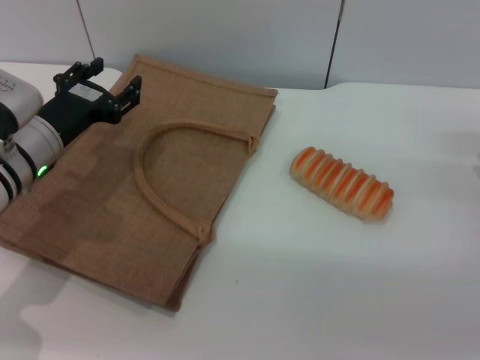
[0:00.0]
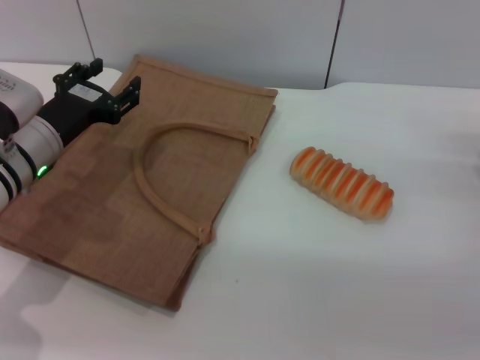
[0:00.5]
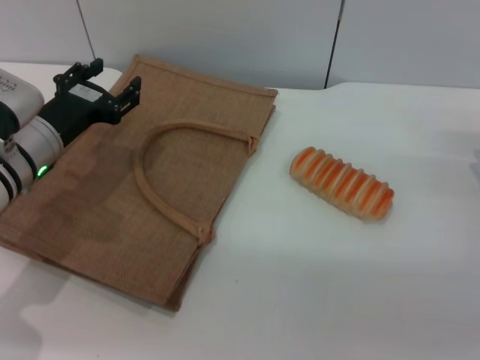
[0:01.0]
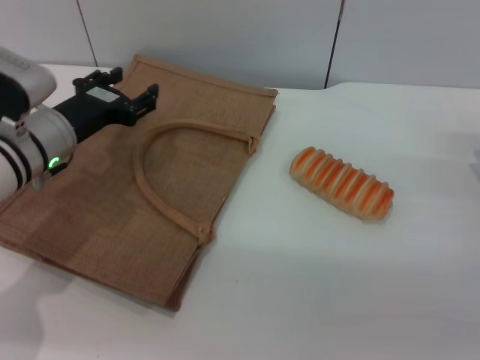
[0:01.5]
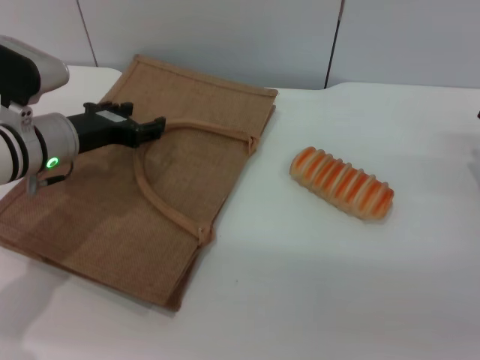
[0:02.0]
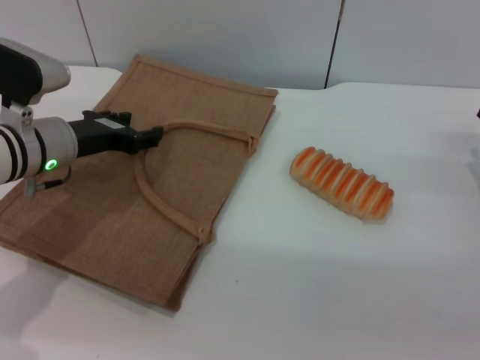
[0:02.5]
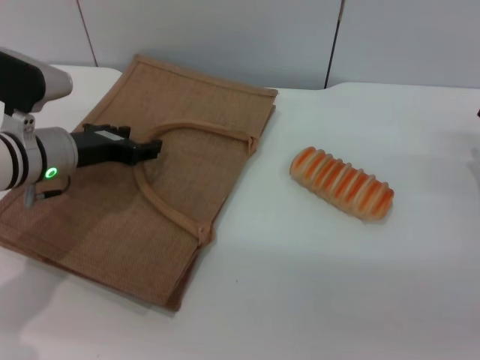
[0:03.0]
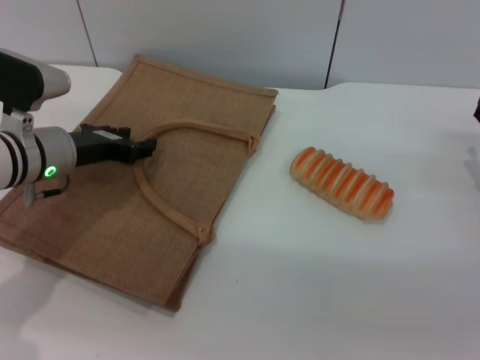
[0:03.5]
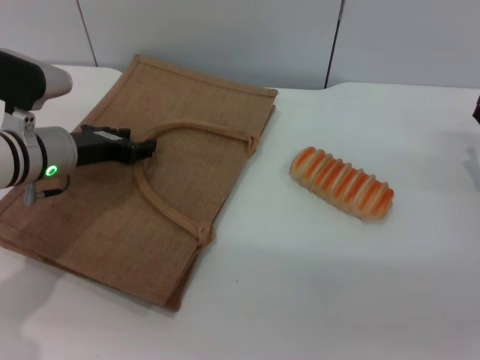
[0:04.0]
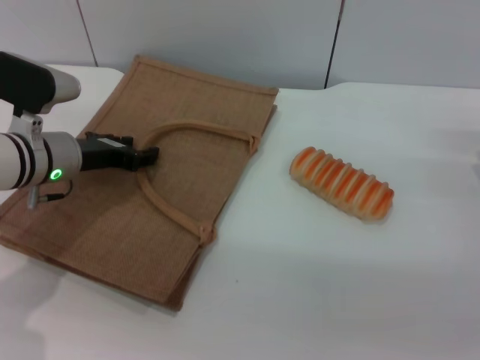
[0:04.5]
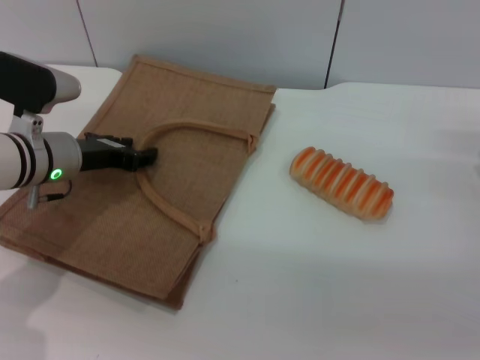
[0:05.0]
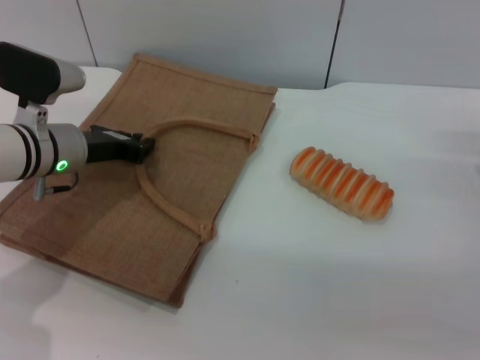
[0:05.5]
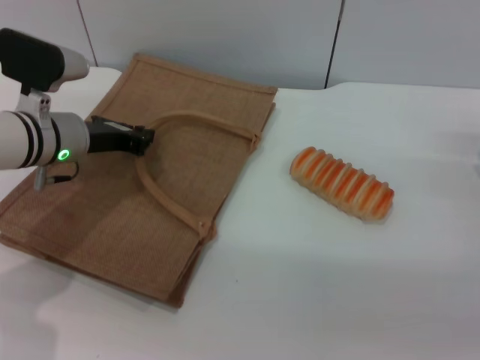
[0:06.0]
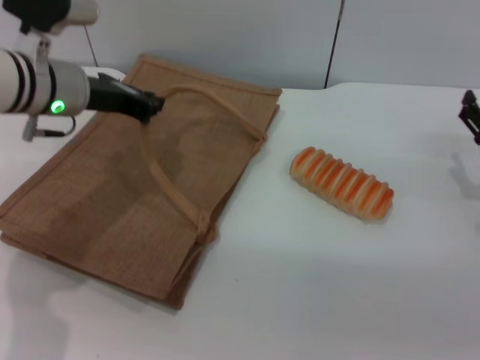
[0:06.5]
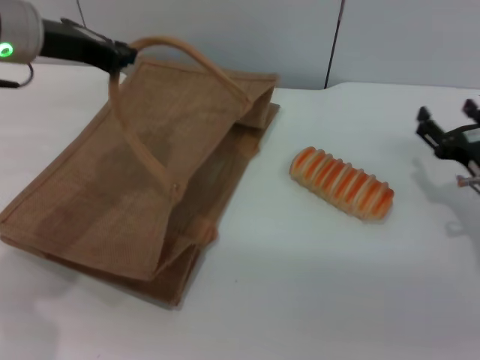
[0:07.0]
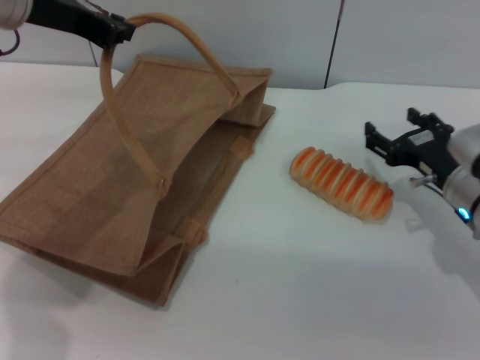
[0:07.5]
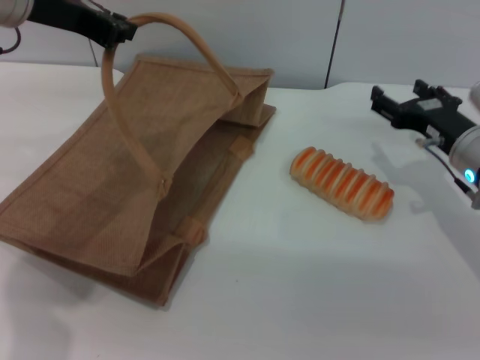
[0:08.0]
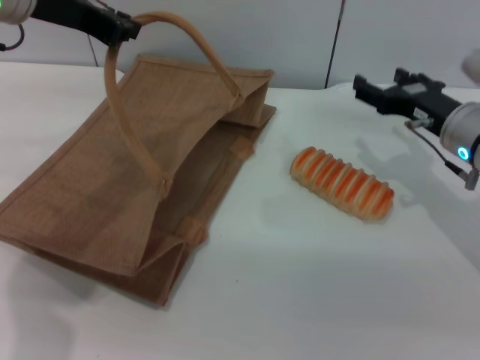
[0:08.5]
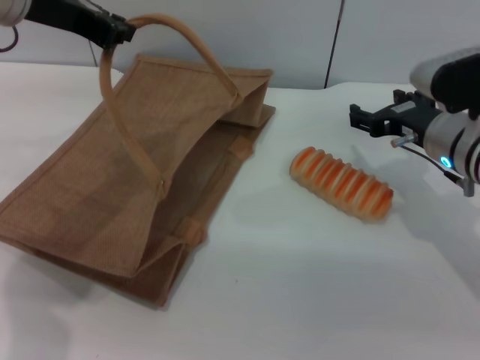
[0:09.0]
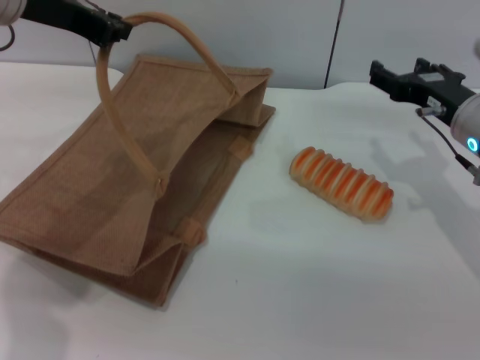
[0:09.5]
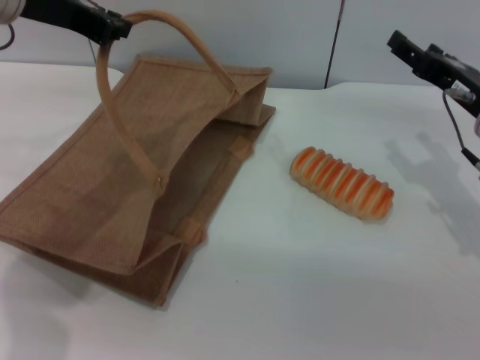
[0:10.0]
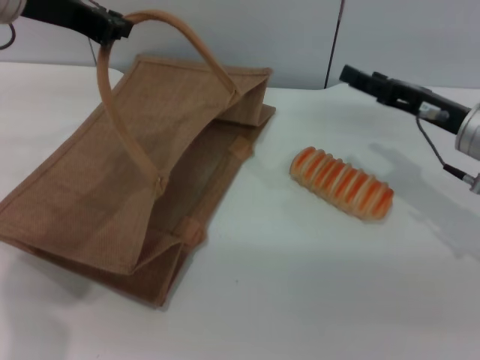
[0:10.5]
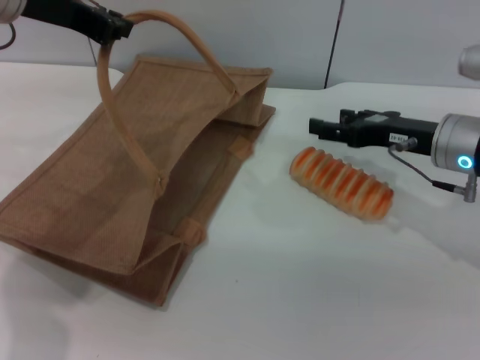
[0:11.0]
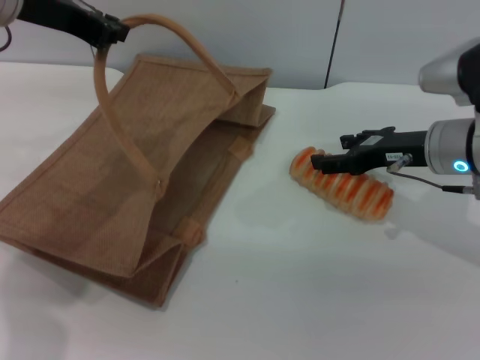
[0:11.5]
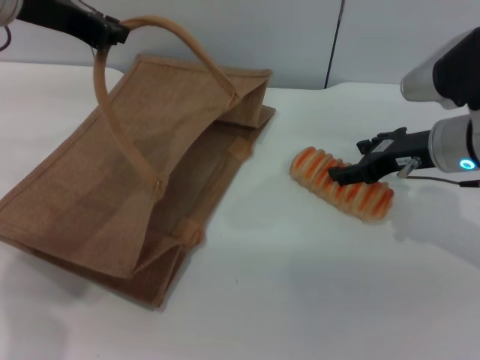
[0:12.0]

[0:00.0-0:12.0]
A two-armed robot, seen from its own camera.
Task of the whole recording: pick up the bread from the table and place it in the brown handbag.
Step, 0:00.0 to 0:06.0: Lift the woven bag with the left gripper to open it.
0:02.0 to 0:04.0: The grippers move only a little.
0:04.0 to 0:06.0: The left gripper closes its fingers.
0:06.0 to 0:08.0: The right gripper travels to the left by roughly 10 cm. Meanwhile the left gripper heads upward, covering about 20 cm.

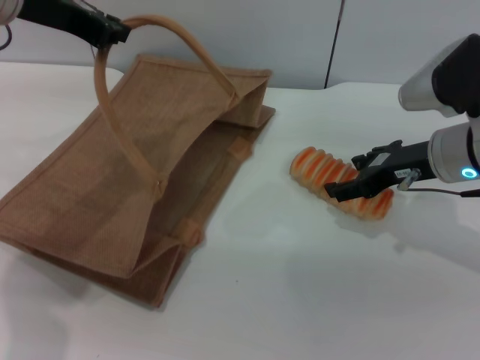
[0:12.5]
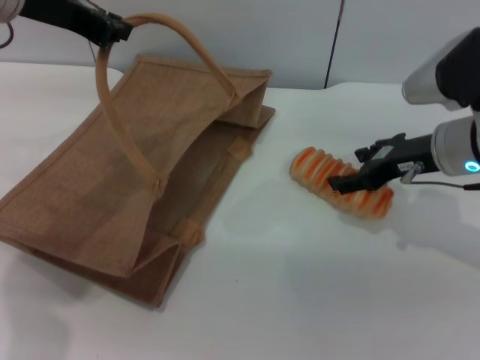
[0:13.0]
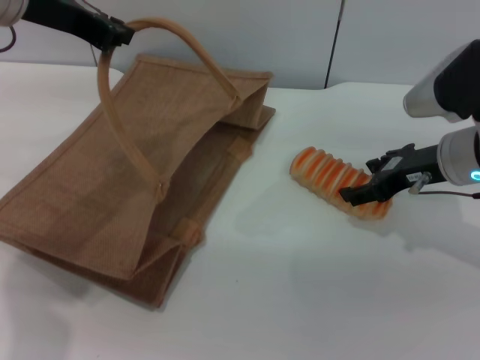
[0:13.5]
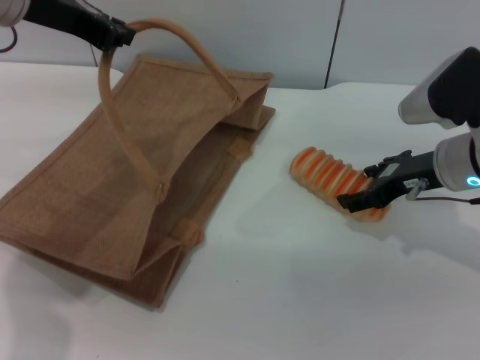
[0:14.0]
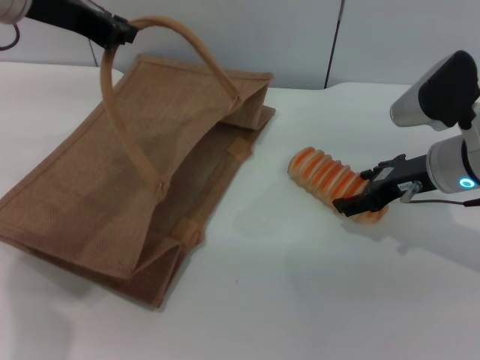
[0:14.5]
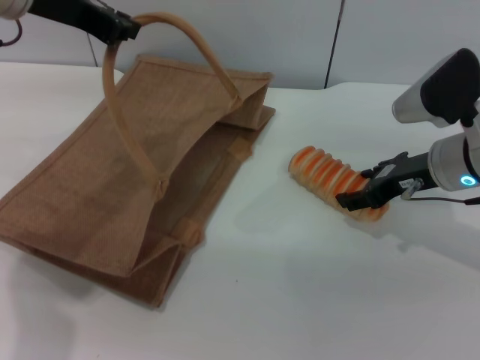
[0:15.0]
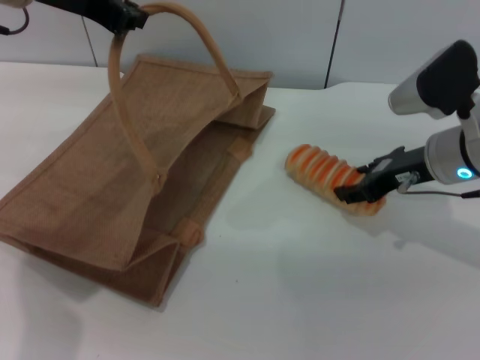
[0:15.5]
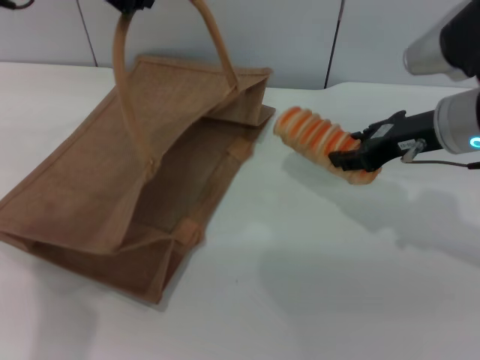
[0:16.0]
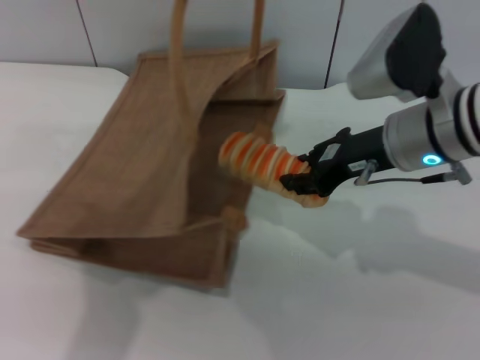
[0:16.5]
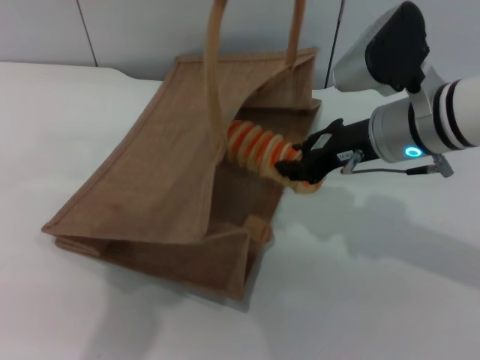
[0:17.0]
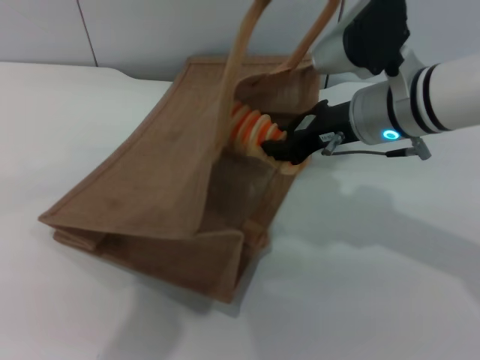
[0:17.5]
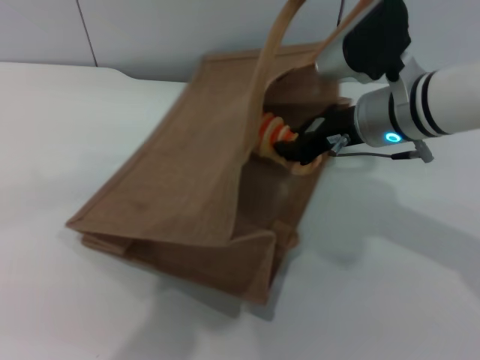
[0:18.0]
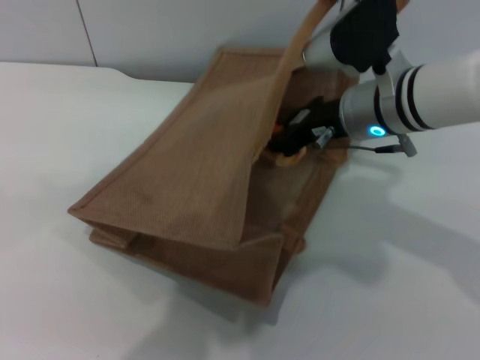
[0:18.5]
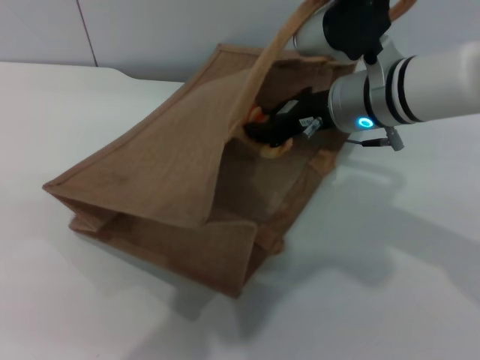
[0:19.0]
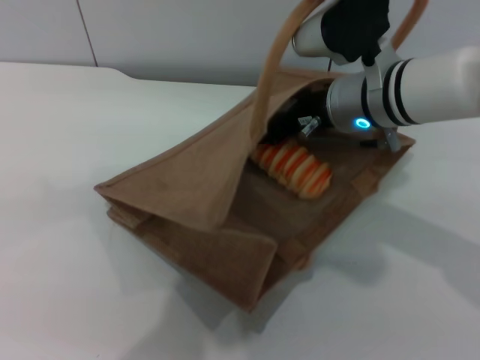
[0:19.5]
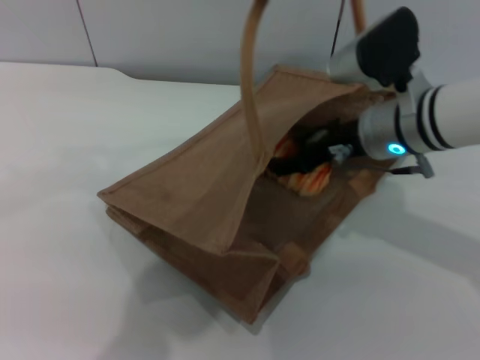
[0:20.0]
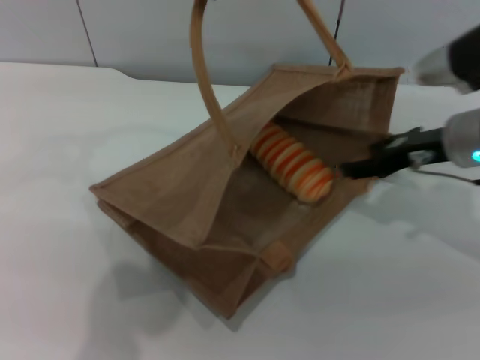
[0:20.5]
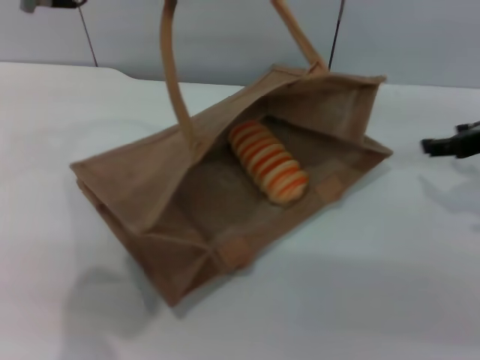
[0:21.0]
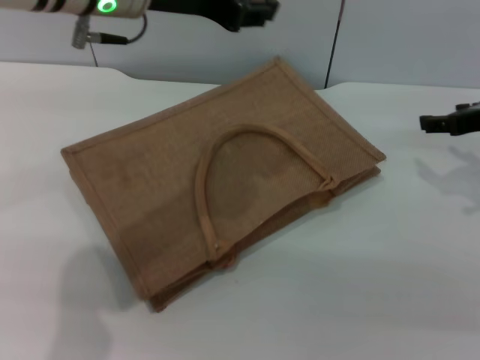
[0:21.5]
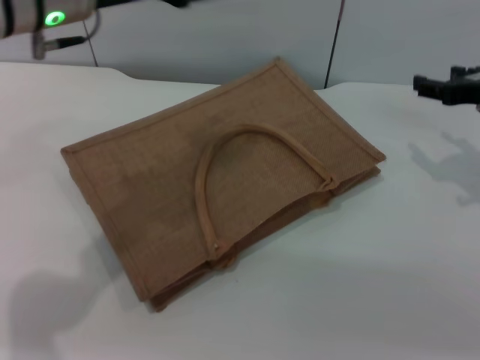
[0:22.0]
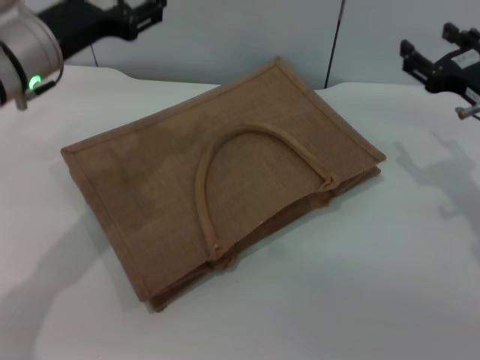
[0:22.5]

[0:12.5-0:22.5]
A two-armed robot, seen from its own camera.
Task of the whole recording: pick up the bread from the table and place it in the brown handbag.
Step, 0:12.5 to 0:15.5: Pick up the bread with the right gripper.
Step, 0:16.5 to 0:20.5: Place the bread into the woven bag with the right gripper.
Step, 0:21.0 to 0:22.0: Lower the woven bag with the left gripper to close it.
0:12.5 to 0:14.5: The grippers make only small movements.
0:14.5 to 0:16.5: The left gripper travels to the right and upward by some 10 cm. The right gripper moves to the left and upward, about 10 cm, and closes.
0:16.5 to 0:18.5: The left gripper shifts some 10 cm to the right and backward. Meanwhile the right gripper ends up some 5 cm from where it was.
0:18.5 to 0:20.5: The left gripper moves to the left, some 10 cm; the right gripper heads to the right, covering approximately 10 cm, and opens its fingers.
0:20.5 to 0:22.5: The left gripper is displaced downward and to the left by approximately 20 cm, and opens its fingers.
